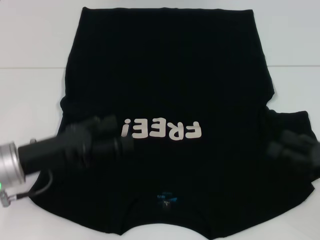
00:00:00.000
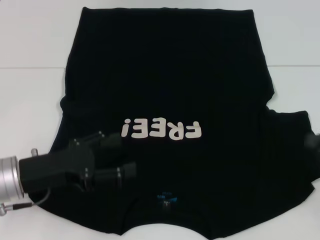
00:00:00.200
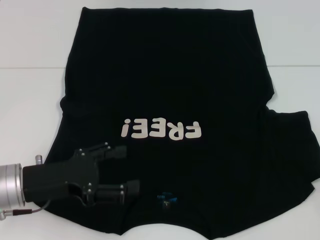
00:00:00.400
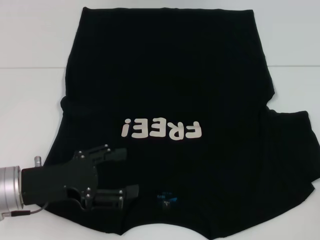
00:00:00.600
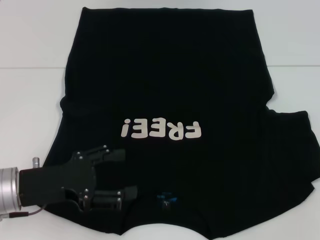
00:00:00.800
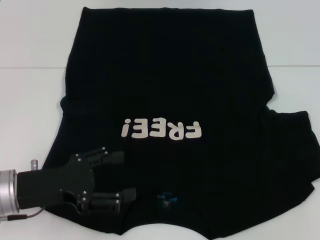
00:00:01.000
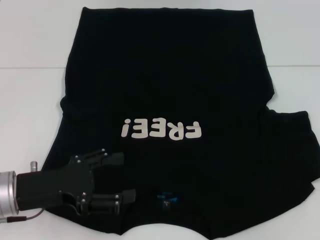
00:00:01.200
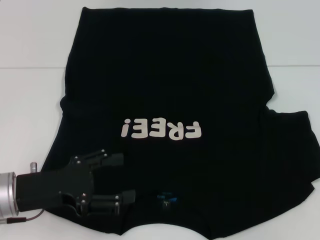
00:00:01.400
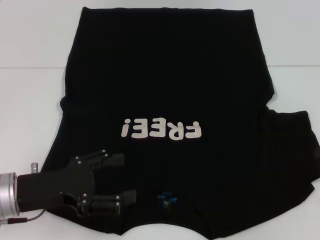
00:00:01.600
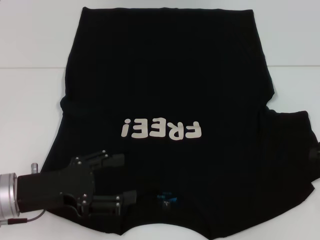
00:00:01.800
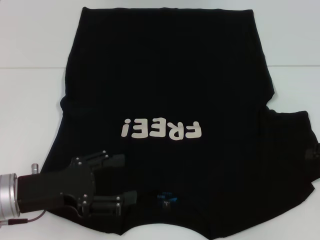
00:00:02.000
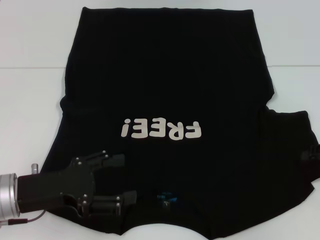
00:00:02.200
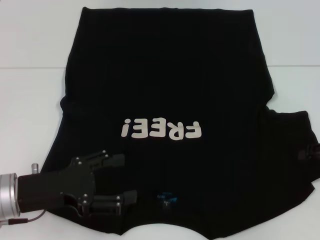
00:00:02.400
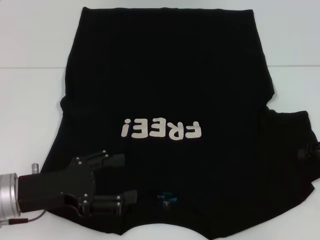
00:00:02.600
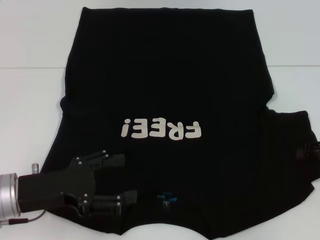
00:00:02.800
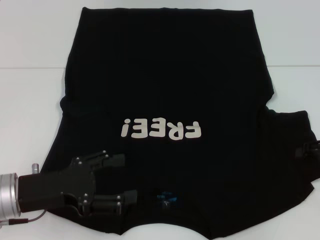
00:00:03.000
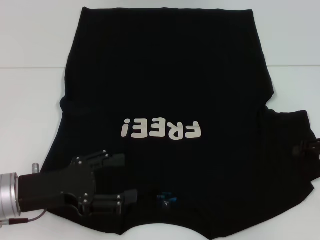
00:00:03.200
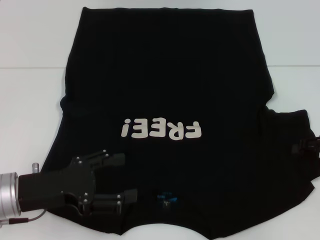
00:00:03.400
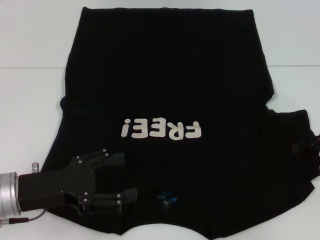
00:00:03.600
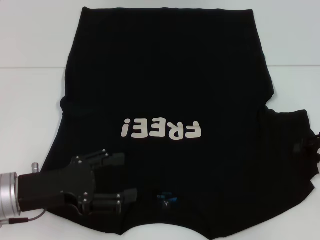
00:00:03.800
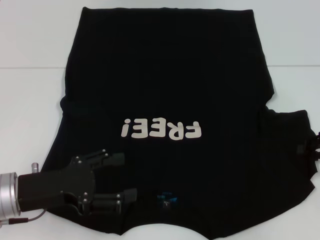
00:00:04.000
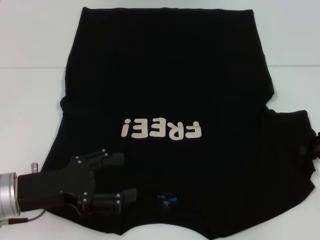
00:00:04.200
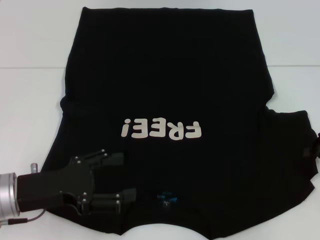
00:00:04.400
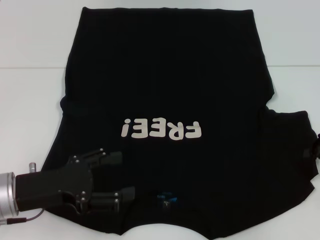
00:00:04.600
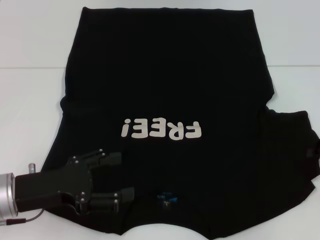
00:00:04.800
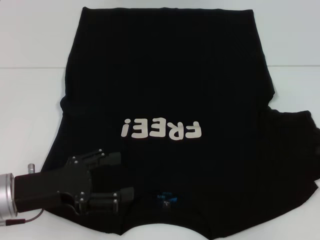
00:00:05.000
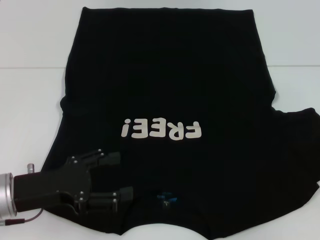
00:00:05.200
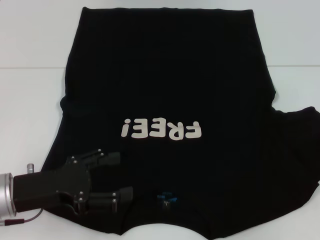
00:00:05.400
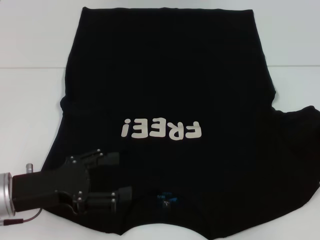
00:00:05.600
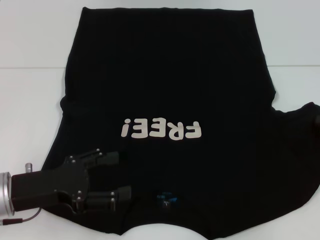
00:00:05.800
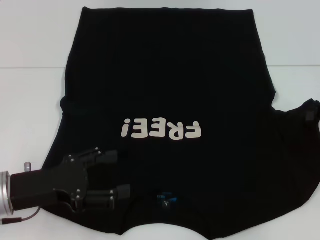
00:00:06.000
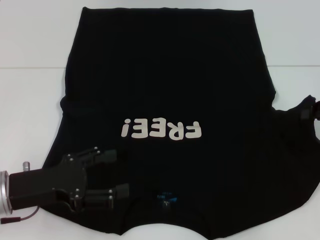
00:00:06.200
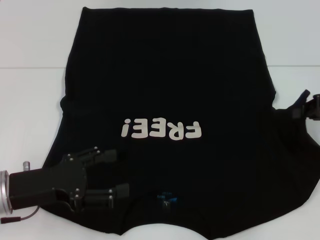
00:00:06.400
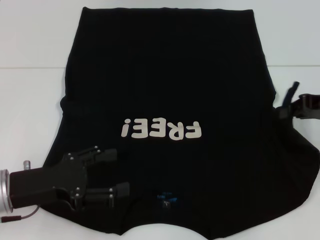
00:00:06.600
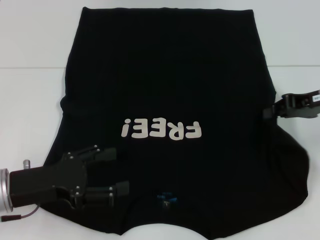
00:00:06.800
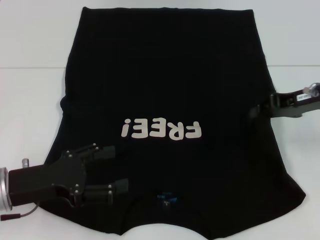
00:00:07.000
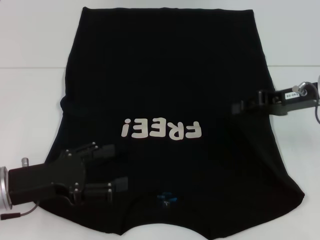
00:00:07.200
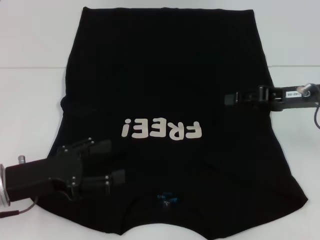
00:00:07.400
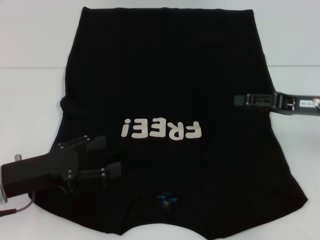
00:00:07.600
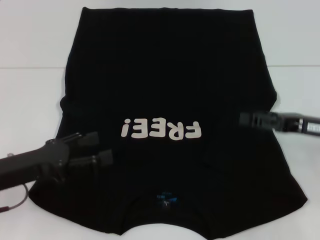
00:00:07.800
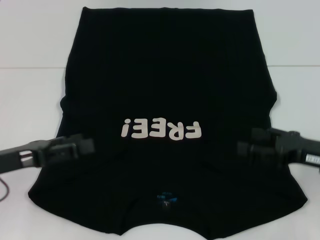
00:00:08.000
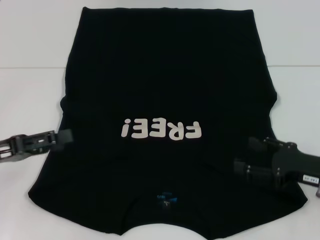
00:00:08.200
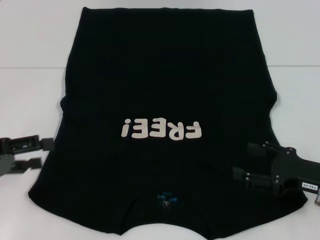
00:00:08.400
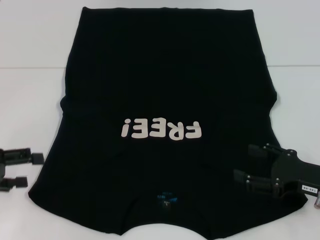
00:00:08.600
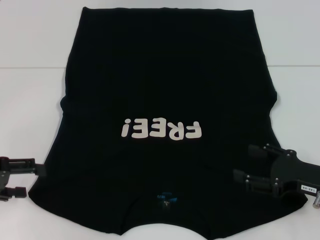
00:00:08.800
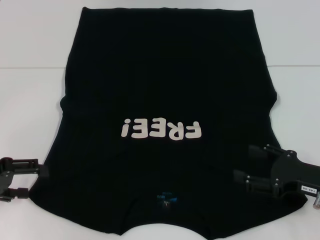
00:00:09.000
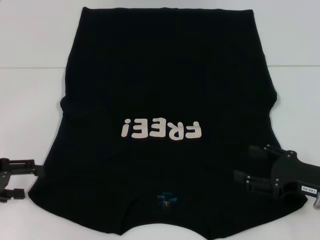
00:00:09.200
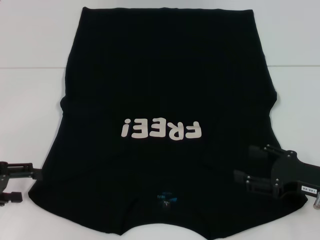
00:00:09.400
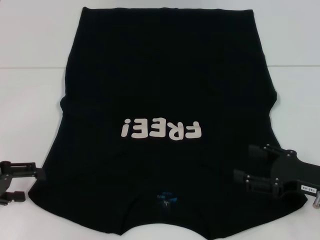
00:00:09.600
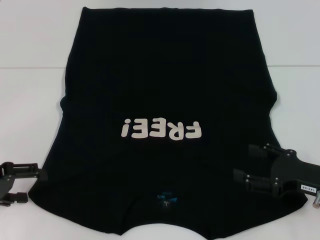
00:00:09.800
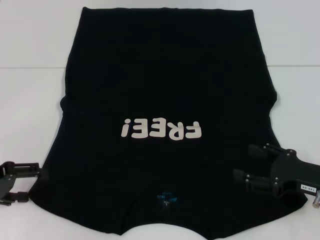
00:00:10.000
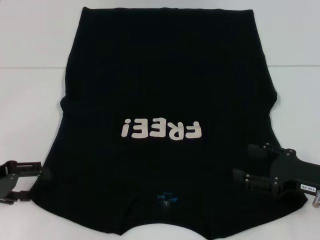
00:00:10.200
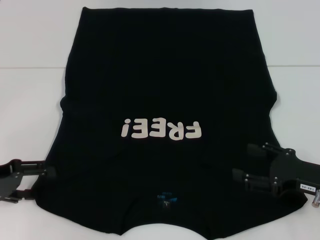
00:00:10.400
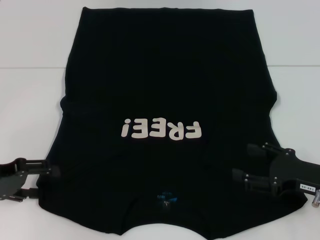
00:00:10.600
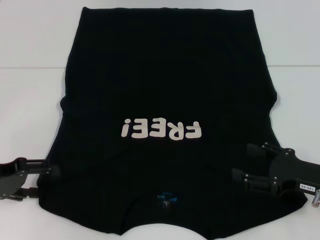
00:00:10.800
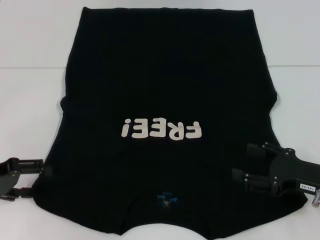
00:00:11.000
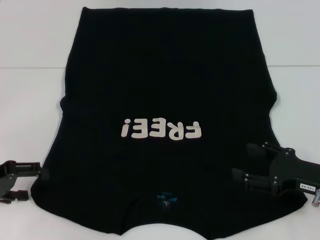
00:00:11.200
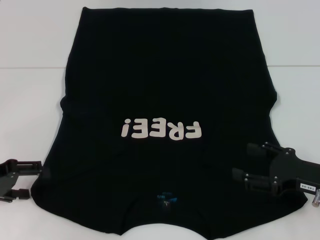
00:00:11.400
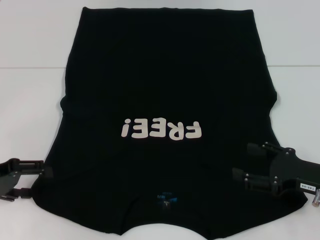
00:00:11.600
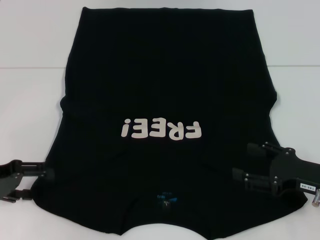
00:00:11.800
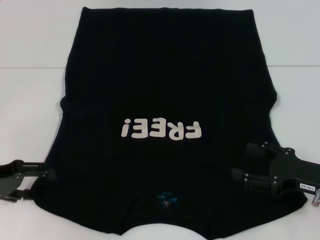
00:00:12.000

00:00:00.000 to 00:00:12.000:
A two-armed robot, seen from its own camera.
Step, 00:00:00.800 to 00:00:07.800: Fold the bottom right sleeve with your right hand.
00:00:01.600 to 00:00:03.000: There are only small adjustments of the grippers.
00:00:04.400 to 00:00:06.000: The right gripper is displaced upward by approximately 5 cm.
00:00:06.000 to 00:00:07.600: The right gripper is displaced to the left by approximately 5 cm, and opens.
00:00:07.600 to 00:00:09.000: The right gripper shifts approximately 10 cm backward and downward, and opens. The left gripper is displaced to the left by some 10 cm.
00:00:09.000 to 00:00:10.400: The grippers move only a little.
00:00:10.400 to 00:00:12.000: Both grippers stay put.

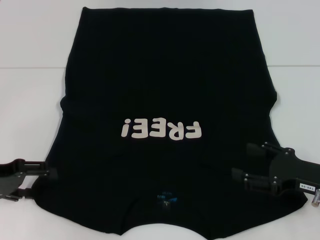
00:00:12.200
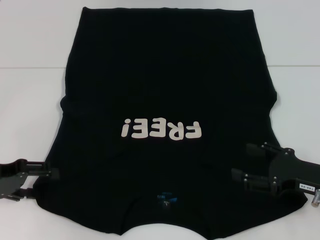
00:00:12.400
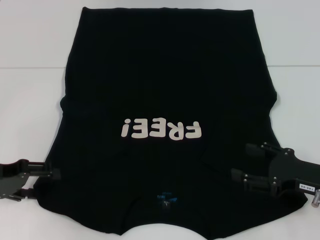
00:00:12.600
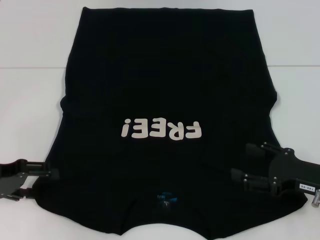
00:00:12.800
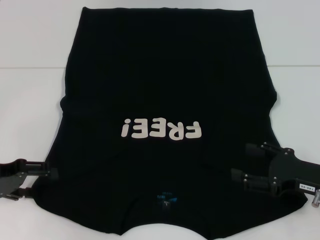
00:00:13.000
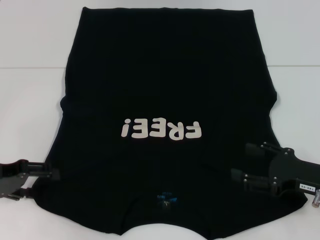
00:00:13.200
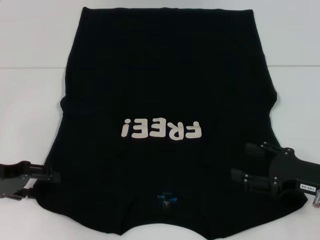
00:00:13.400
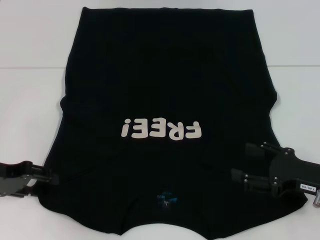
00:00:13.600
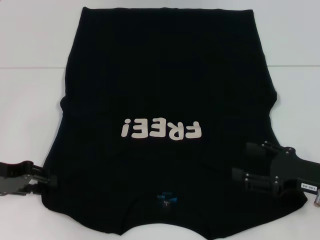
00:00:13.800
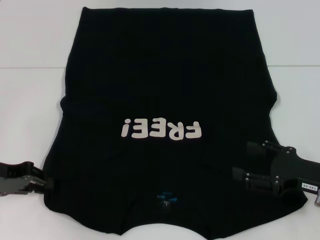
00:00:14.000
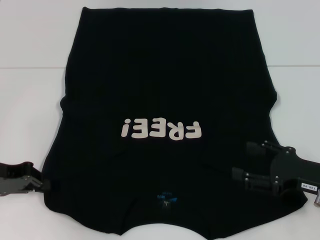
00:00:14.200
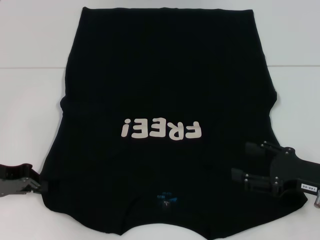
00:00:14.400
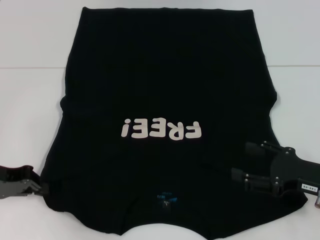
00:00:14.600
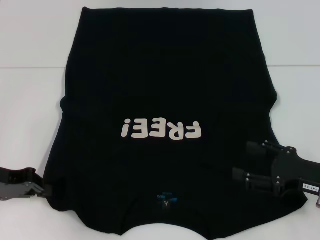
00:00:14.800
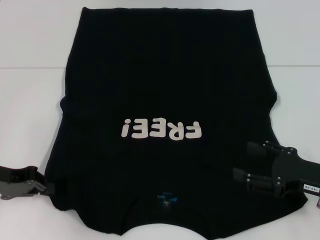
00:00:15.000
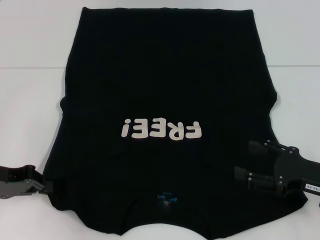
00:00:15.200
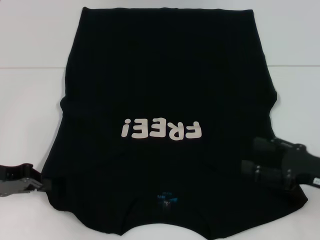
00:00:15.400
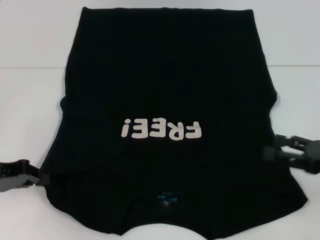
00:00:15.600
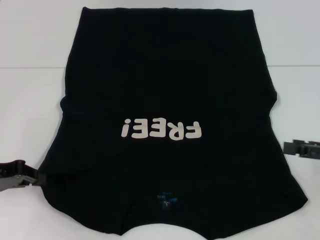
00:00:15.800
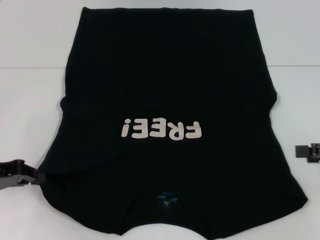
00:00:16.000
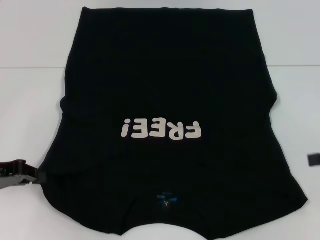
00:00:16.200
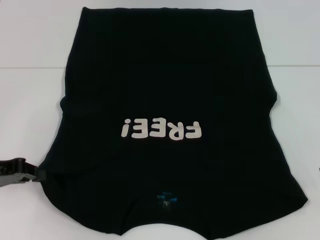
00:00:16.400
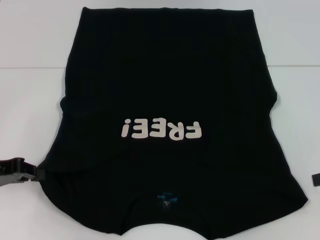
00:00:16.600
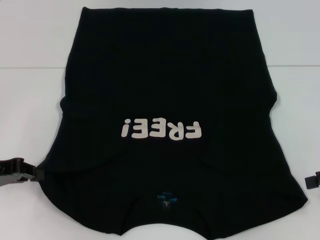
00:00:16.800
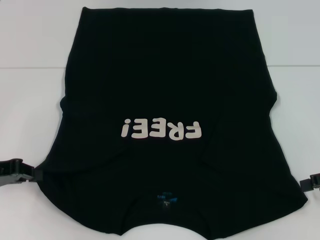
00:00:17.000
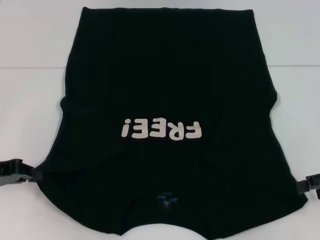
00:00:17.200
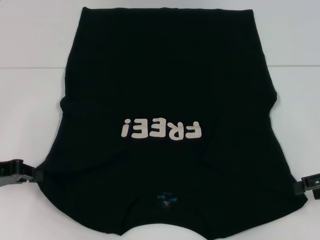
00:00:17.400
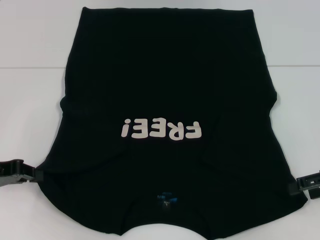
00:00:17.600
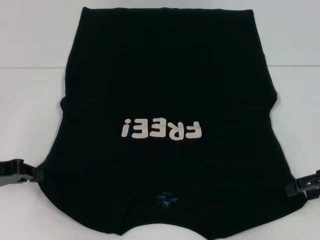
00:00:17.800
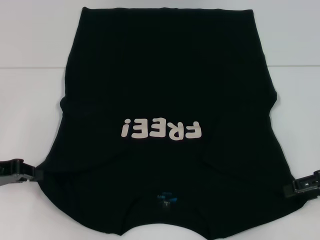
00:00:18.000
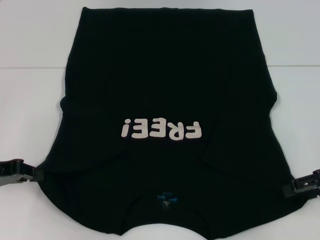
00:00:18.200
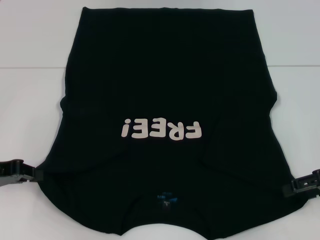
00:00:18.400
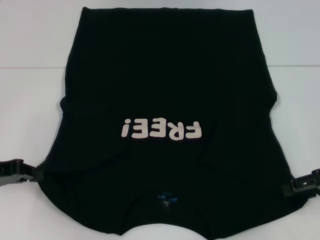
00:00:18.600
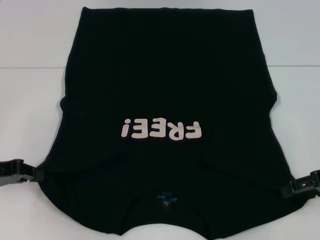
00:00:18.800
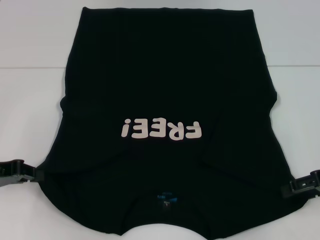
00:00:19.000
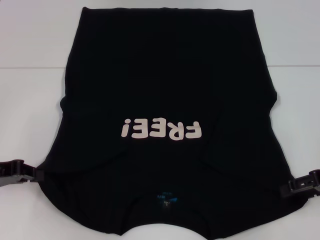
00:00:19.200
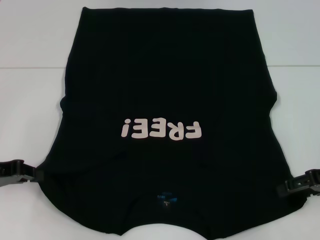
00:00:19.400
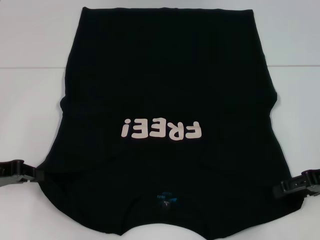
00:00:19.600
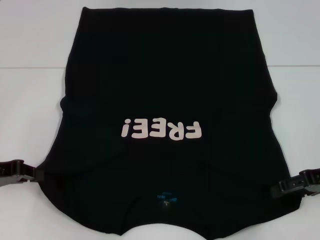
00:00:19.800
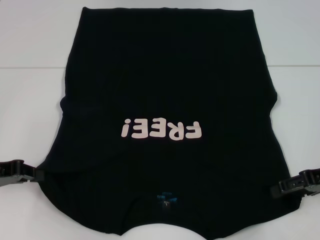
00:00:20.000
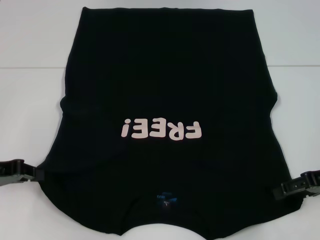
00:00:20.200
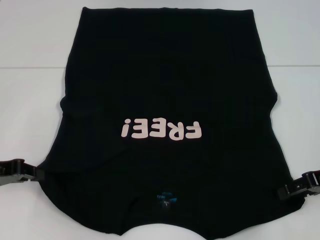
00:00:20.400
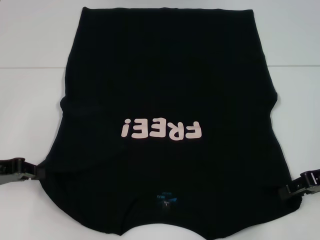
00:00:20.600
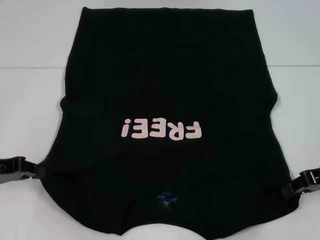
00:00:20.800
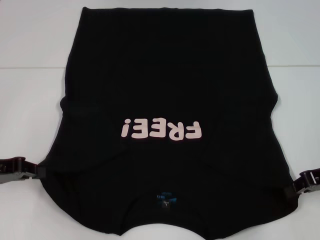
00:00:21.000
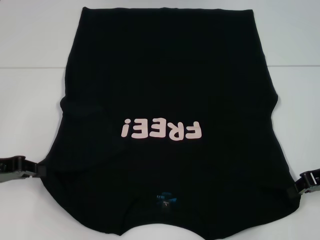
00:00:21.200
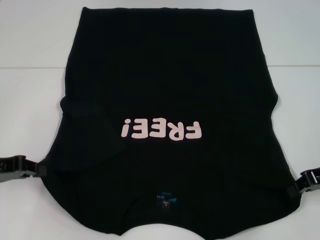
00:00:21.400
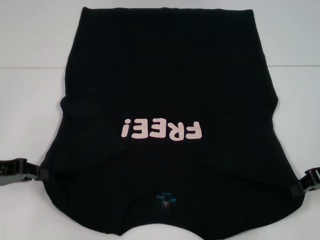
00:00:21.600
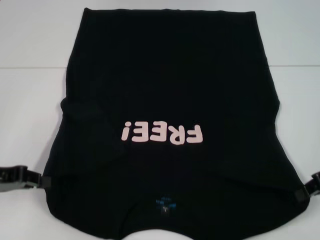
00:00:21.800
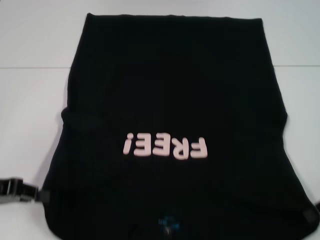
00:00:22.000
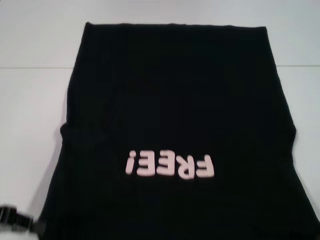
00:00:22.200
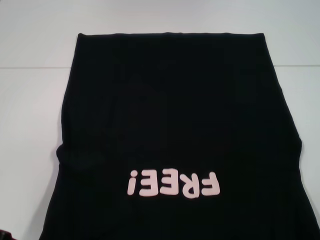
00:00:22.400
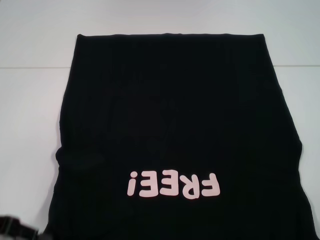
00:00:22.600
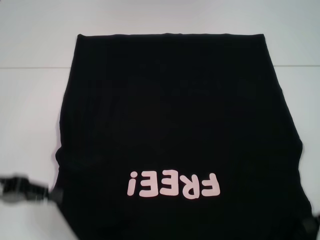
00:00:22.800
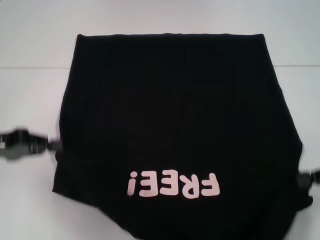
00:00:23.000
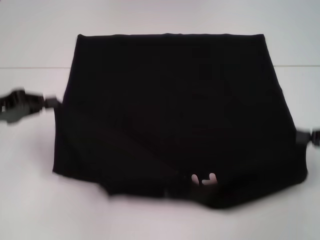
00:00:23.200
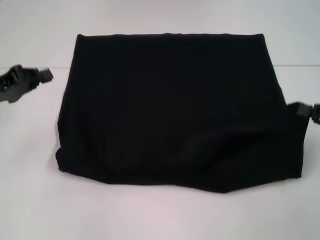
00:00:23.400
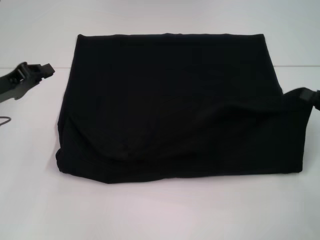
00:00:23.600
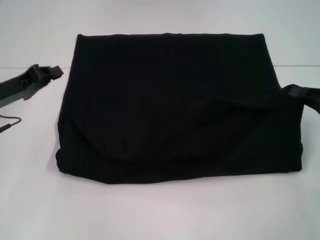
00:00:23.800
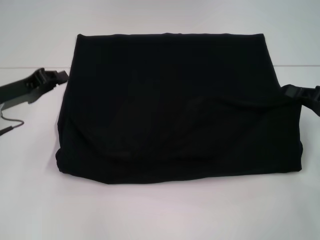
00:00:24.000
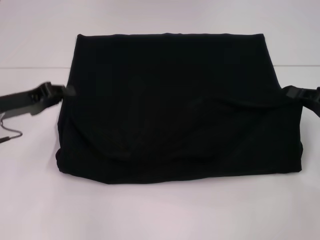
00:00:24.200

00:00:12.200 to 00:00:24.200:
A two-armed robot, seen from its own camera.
Step, 00:00:12.200 to 00:00:21.200: Grab the bottom left corner with your left hand.
Step, 00:00:12.200 to 00:00:21.200: Grab the bottom right corner with your right hand.
00:00:12.200 to 00:00:13.800: The grippers stay close to where they were, moving slightly.
00:00:13.800 to 00:00:15.200: The left gripper closes its fingers.
00:00:15.200 to 00:00:16.600: The right gripper goes some 10 cm to the right and upward.
00:00:16.600 to 00:00:18.200: The right gripper ends up roughly 5 cm from where it was.
00:00:18.200 to 00:00:19.800: The grippers make only small movements.
00:00:19.800 to 00:00:21.200: The right gripper closes up.
00:00:21.200 to 00:00:22.600: The right gripper goes about 5 cm backward. The left gripper shifts by roughly 5 cm.
00:00:22.600 to 00:00:24.200: The right gripper moves forward, about 5 cm. Meanwhile the left gripper moves forward, about 10 cm.
